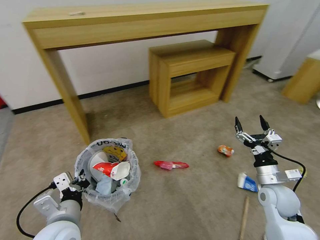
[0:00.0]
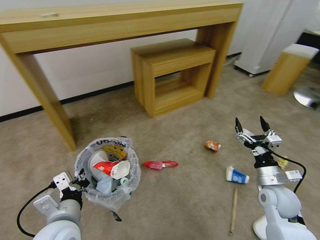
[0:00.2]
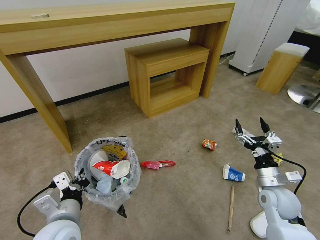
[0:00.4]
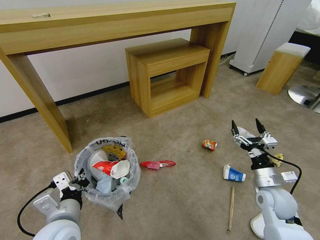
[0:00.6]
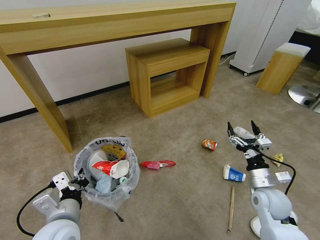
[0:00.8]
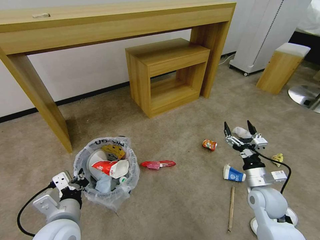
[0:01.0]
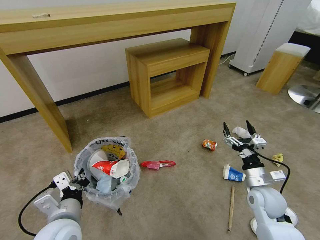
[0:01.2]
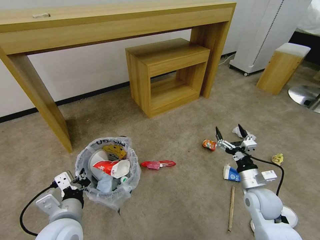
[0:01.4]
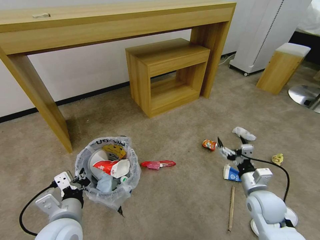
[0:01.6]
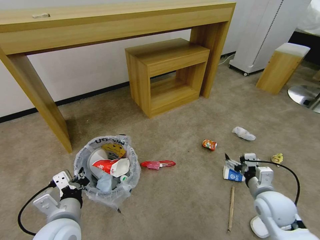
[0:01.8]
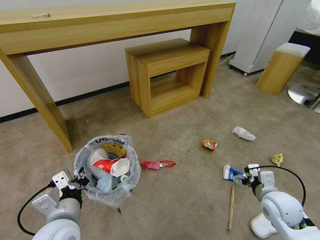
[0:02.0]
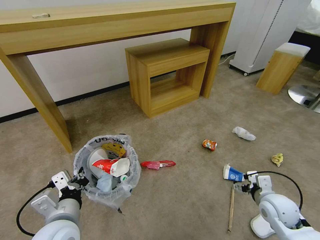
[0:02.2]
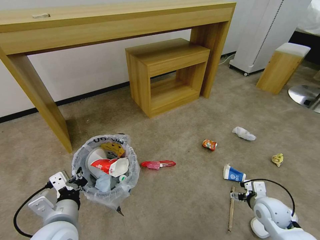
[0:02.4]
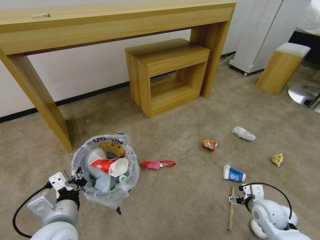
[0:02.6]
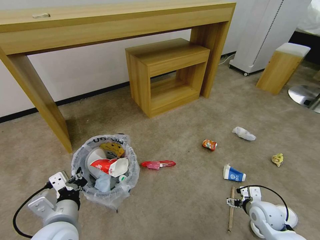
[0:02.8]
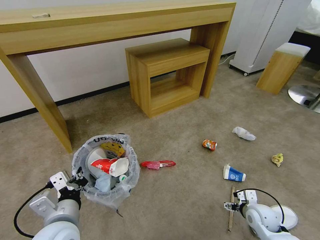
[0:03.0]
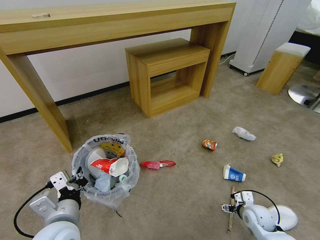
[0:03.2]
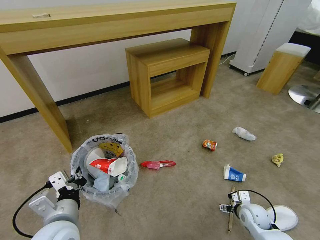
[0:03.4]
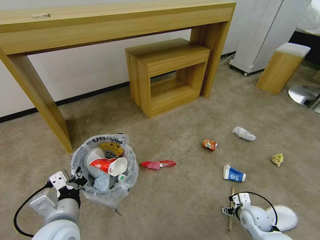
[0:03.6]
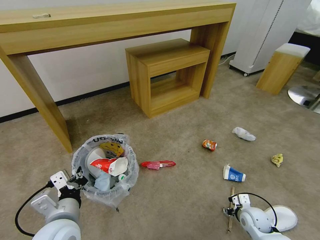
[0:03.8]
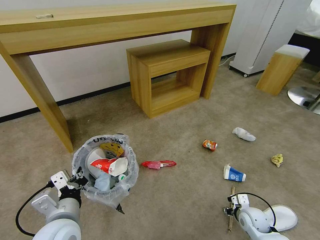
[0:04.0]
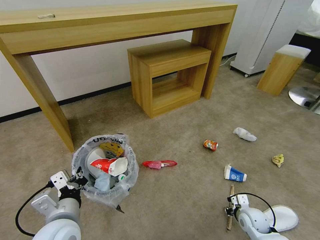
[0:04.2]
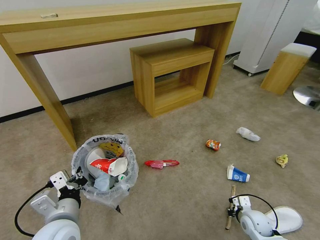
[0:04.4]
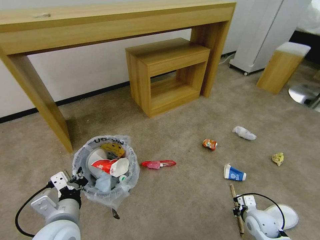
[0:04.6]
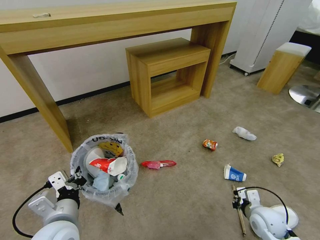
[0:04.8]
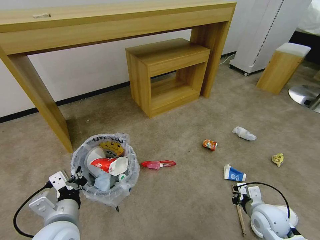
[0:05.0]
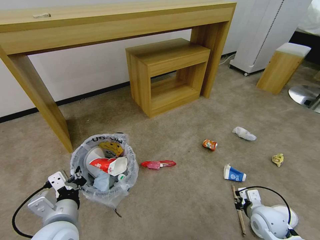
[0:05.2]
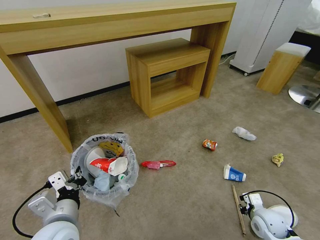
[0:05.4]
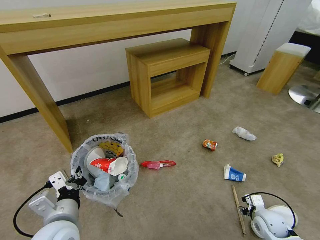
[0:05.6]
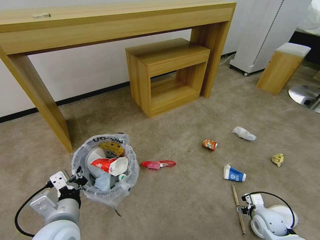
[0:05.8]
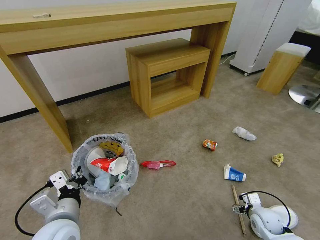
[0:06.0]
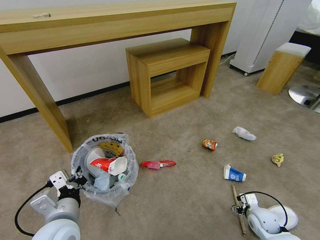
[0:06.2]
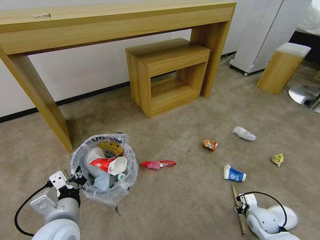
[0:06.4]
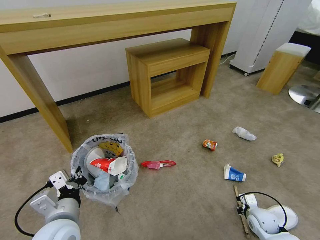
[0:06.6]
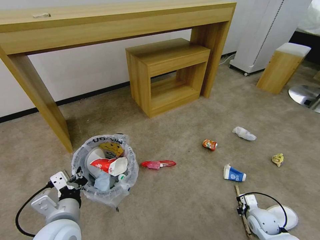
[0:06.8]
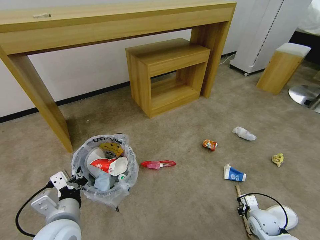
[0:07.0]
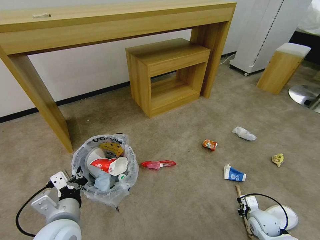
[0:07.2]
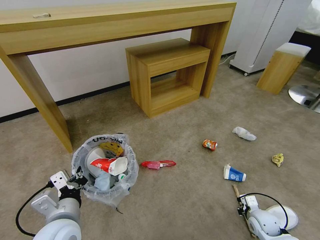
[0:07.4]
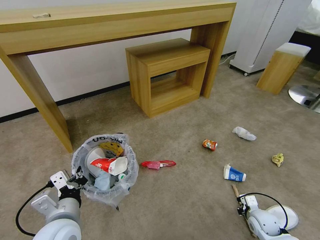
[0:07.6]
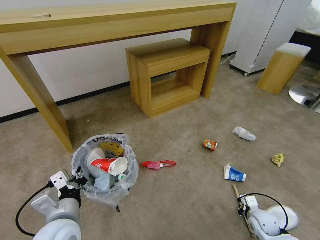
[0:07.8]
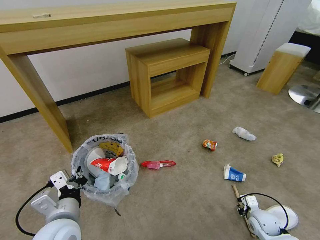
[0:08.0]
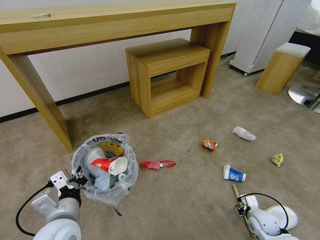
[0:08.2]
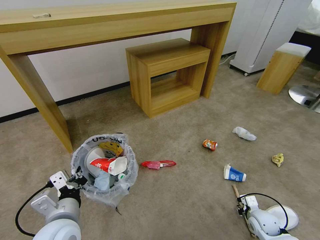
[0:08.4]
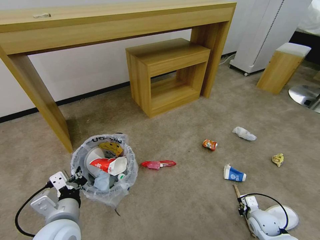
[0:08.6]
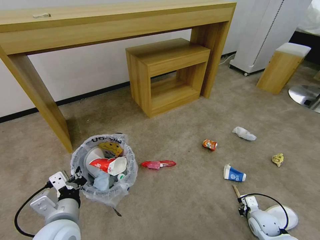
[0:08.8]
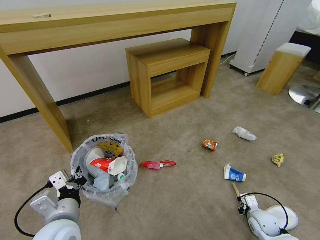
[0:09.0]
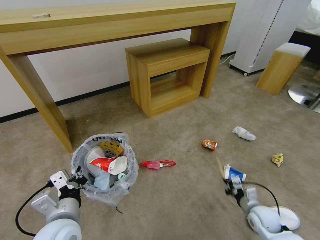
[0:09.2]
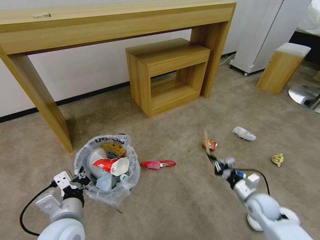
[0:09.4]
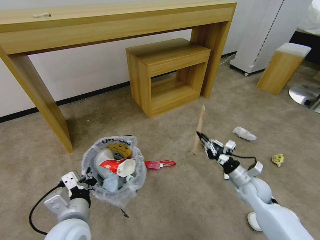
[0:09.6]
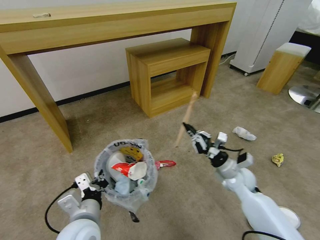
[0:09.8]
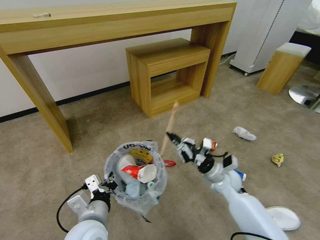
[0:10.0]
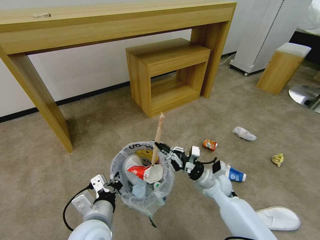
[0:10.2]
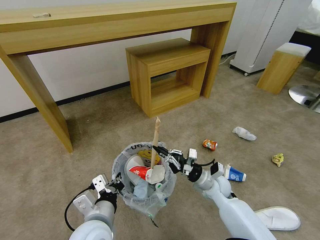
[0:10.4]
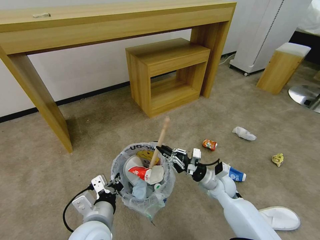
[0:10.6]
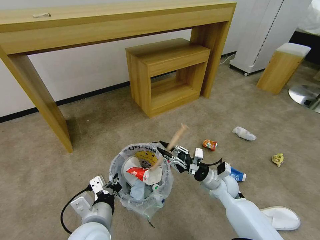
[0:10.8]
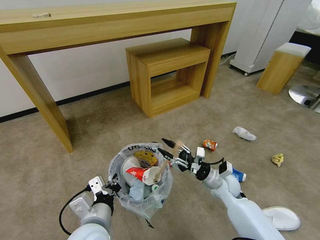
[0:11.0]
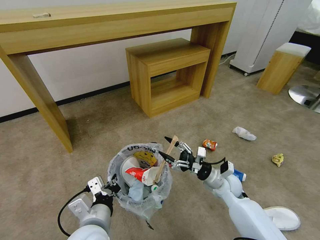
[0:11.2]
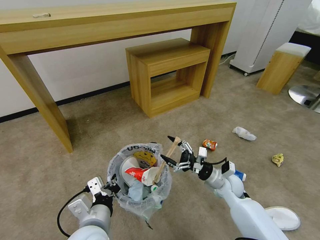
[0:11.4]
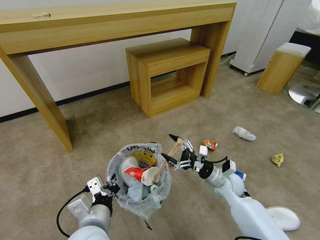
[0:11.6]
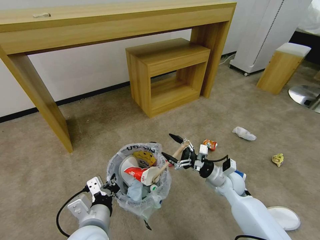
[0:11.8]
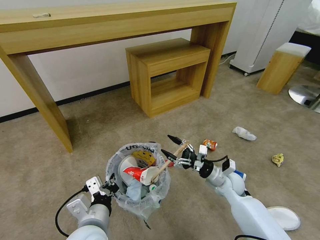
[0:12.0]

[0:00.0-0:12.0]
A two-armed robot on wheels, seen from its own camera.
Task of the whole recording: Pick up the trash bin and place the garbage on the floor into it.
0:01.6 to 0:03.0: The right gripper moves downward, some 10 cm.
0:03.0 to 0:04.4: The right gripper closes its fingers.
0:04.4 to 0:06.0: The right gripper travels upward and back again, about 10 cm each way, and opens.
0:06.0 to 0:07.6: The right gripper closes up.
0:09.0 to 0:10.4: The left gripper moves to the right, approximately 5 cm; the right gripper travels to the left, upward and forward by about 25 cm.
0:10.4 to 0:12.0: The right gripper opens its fingers.

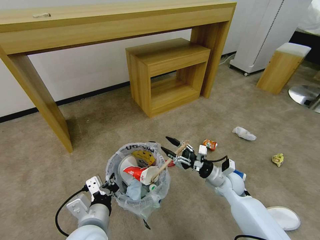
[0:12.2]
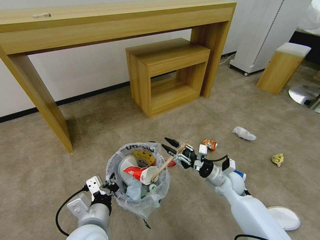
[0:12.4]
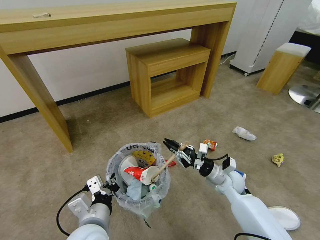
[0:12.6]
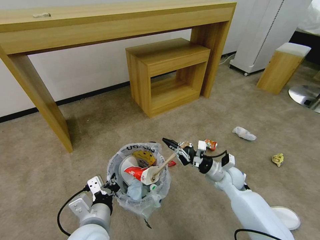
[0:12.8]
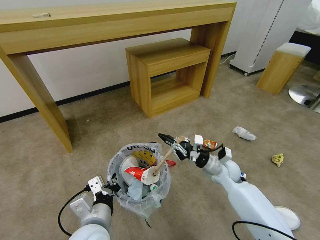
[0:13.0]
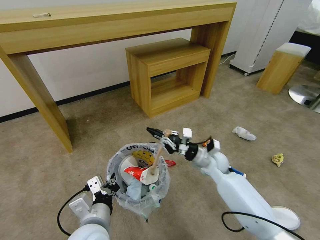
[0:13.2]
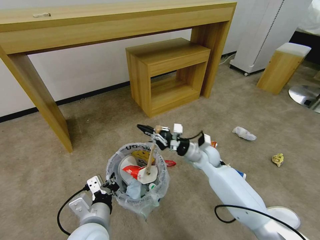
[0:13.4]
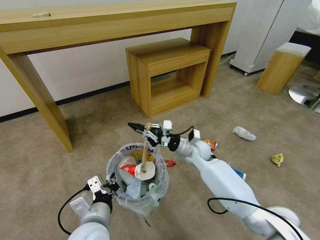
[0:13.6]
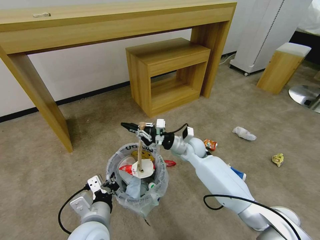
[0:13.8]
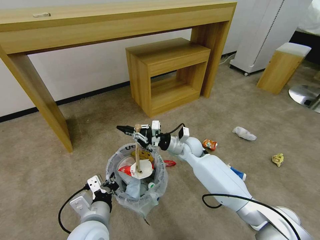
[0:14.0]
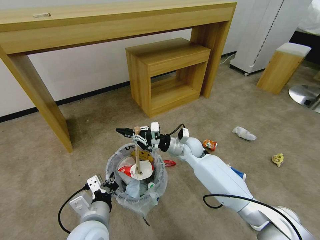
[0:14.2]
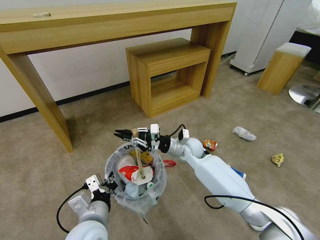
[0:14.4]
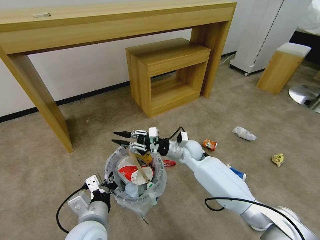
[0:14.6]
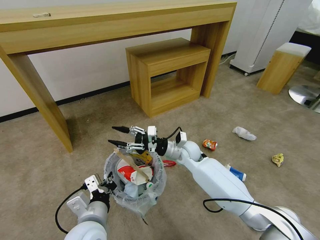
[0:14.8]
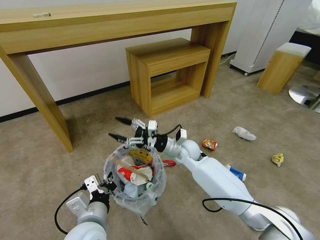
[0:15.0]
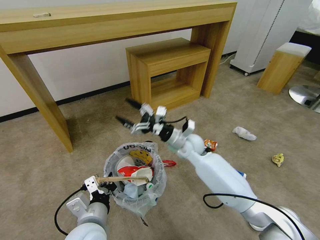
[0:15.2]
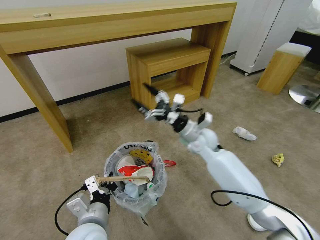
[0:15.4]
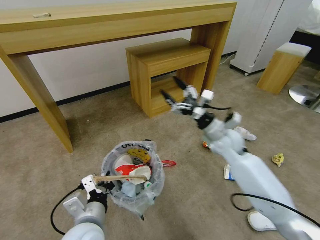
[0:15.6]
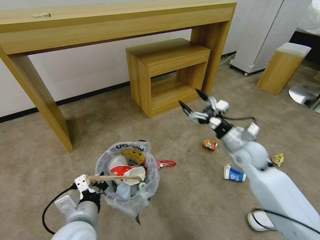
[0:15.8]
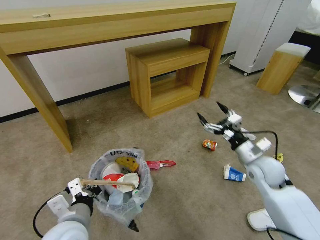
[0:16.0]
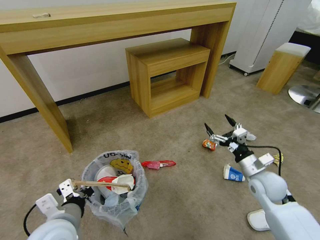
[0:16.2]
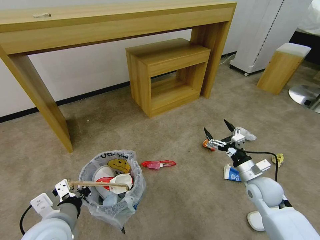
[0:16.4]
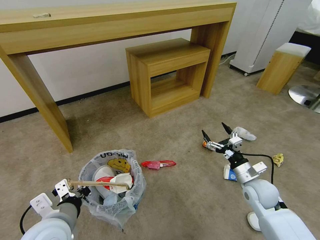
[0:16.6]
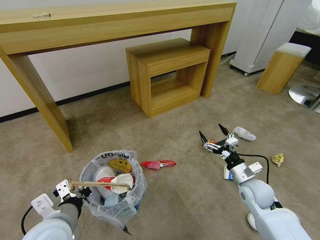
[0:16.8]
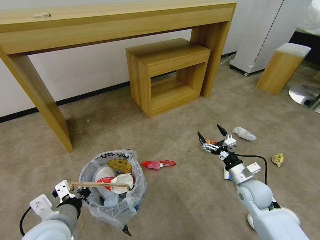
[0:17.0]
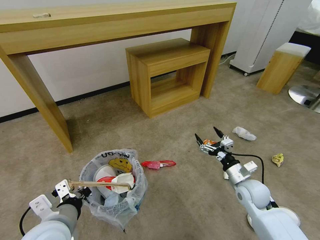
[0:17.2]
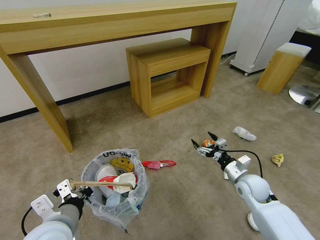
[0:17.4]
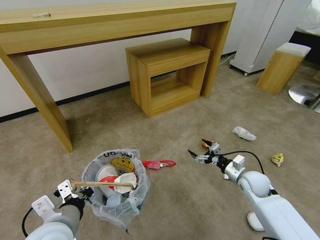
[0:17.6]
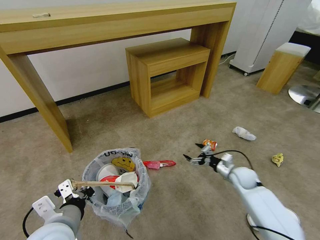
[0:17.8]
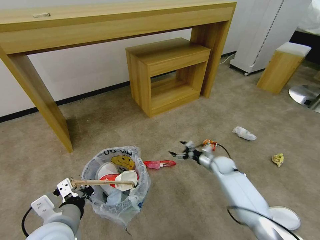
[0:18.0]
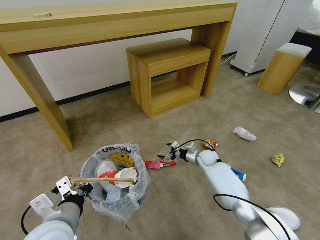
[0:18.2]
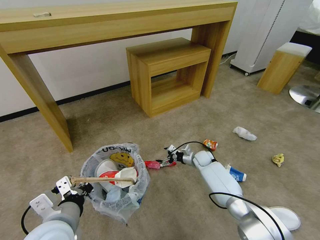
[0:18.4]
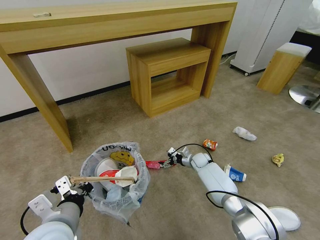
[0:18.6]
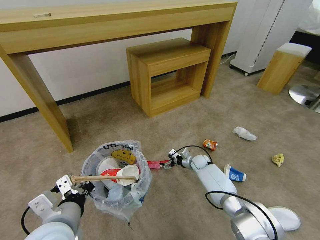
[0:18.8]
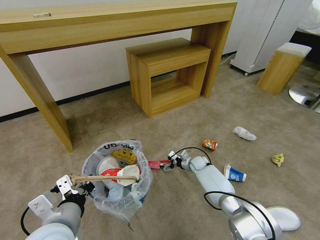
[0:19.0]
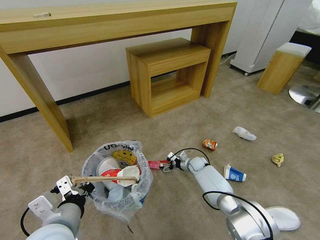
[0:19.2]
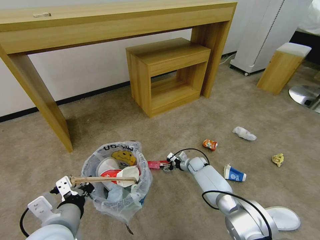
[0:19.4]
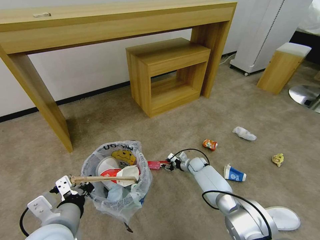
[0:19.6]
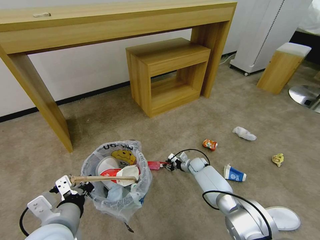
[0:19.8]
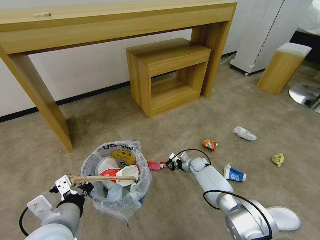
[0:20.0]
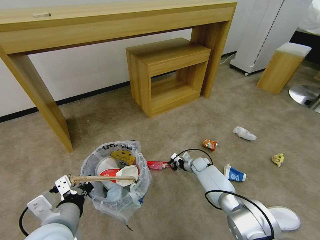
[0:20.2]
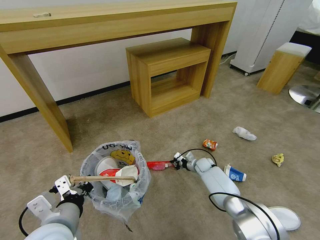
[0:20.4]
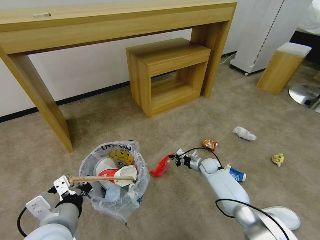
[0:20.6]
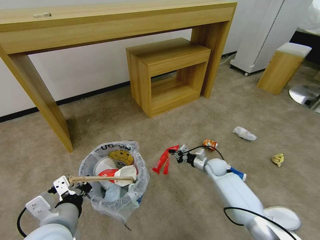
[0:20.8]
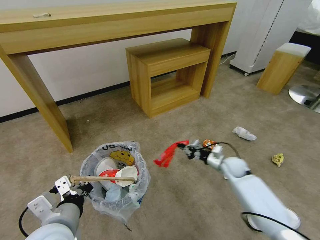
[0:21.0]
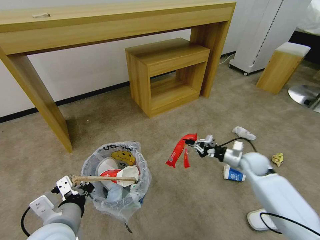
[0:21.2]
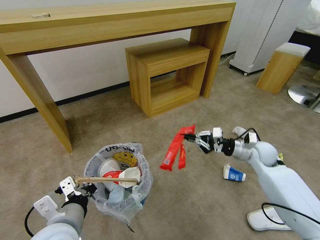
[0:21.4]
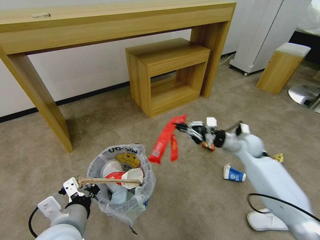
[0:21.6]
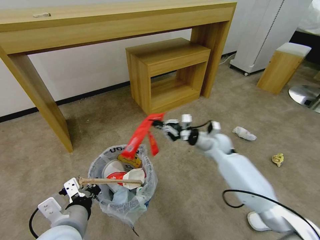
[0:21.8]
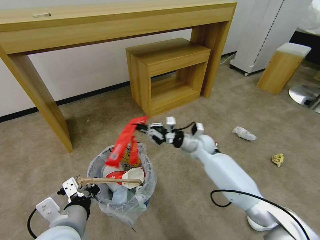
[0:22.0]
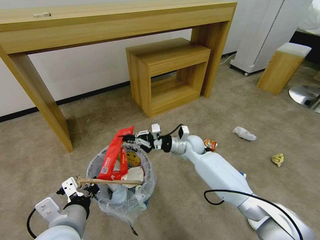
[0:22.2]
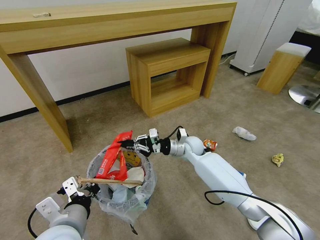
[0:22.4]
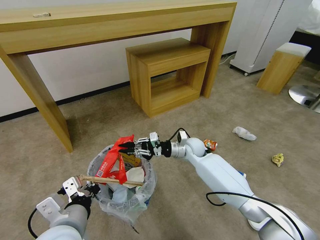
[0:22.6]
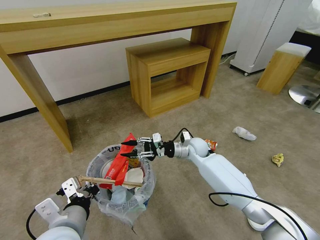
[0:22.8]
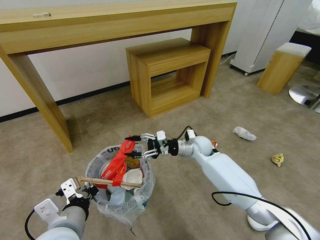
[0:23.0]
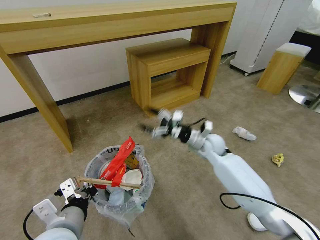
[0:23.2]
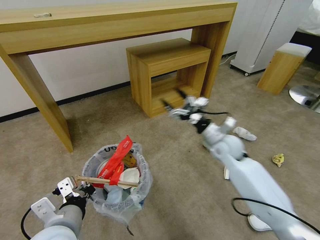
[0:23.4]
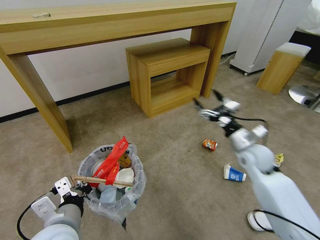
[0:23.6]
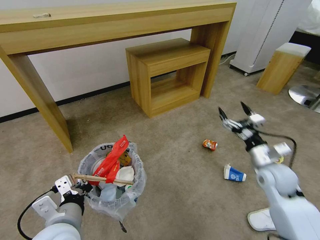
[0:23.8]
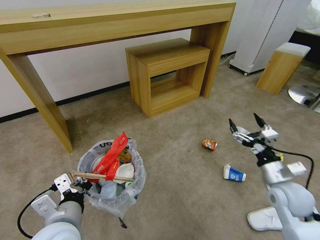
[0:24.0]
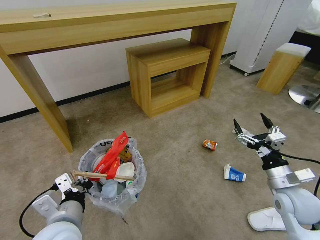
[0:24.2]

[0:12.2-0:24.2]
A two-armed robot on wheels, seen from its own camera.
Task of the whole recording: Pick up the trash bin and place the garbage on the floor into it.
0:12.2 to 0:13.8: The right gripper heads to the left, forward and upward, covering approximately 20 cm, and closes up.
0:13.8 to 0:15.2: The right gripper opens its fingers.
0:15.2 to 0:16.6: The left gripper shifts some 5 cm to the left. The right gripper moves to the right and backward, approximately 25 cm.
0:16.6 to 0:18.2: The right gripper shifts some 25 cm forward, downward and to the left.
0:18.2 to 0:19.8: The right gripper goes some 5 cm downward, and closes up.
0:19.8 to 0:21.2: The right gripper is displaced upward, to the right and backward by some 25 cm.
0:21.2 to 0:22.6: The right gripper travels to the left by approximately 25 cm.
0:22.6 to 0:24.2: The right gripper heads to the right and backward, covering approximately 35 cm, and opens its fingers.
